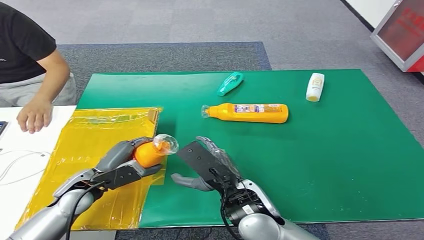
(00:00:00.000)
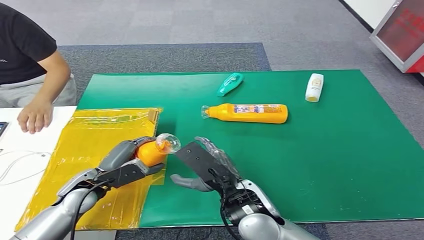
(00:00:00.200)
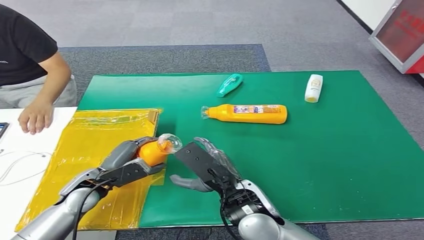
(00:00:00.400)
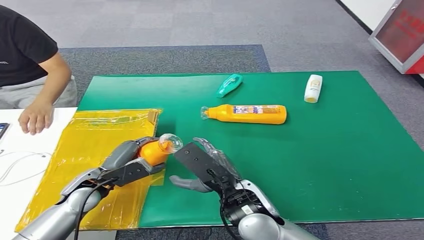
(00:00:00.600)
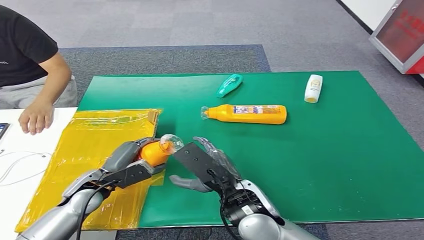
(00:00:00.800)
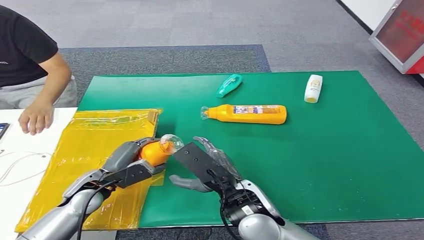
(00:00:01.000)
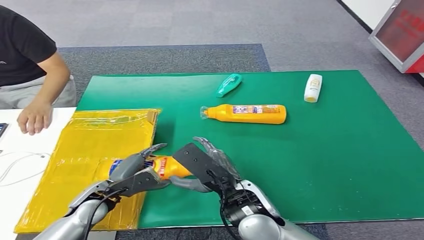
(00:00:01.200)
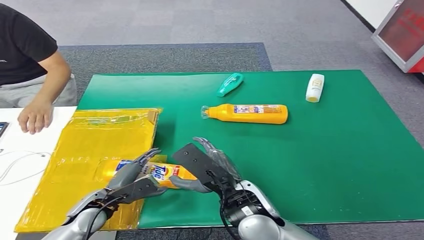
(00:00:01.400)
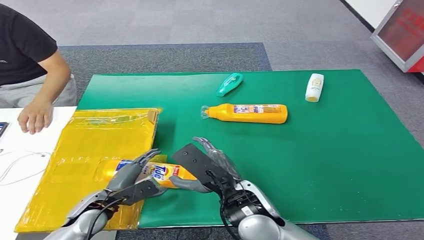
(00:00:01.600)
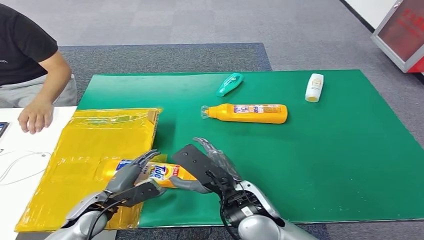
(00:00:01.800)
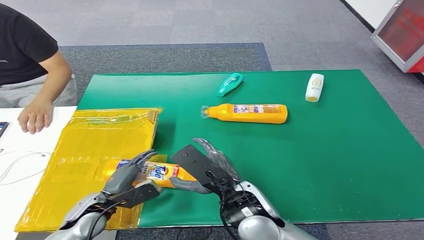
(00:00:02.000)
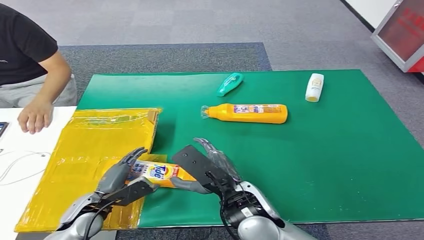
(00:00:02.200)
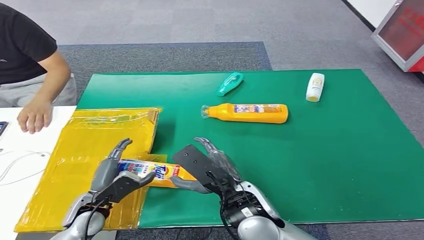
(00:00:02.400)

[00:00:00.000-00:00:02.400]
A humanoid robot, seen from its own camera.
Step, 00:00:00.000 to 00:00:02.400: Turn the bottle to the front side.
00:00:00.000 to 00:00:01.200: There are only small adjustments of the hands.
